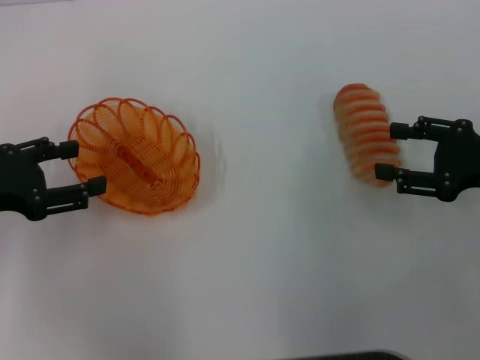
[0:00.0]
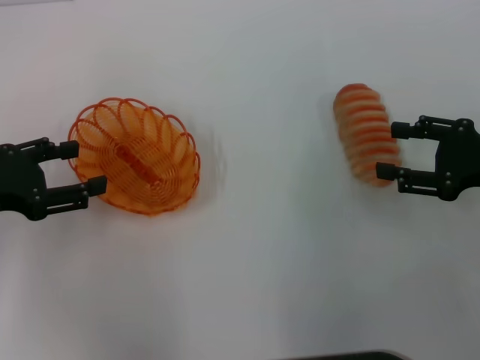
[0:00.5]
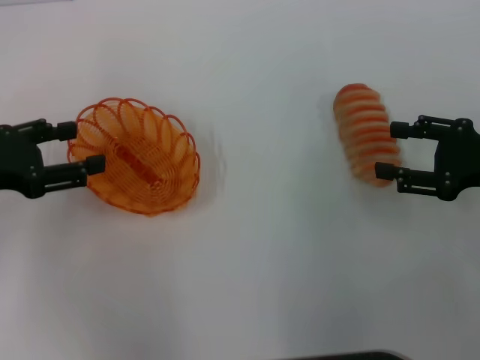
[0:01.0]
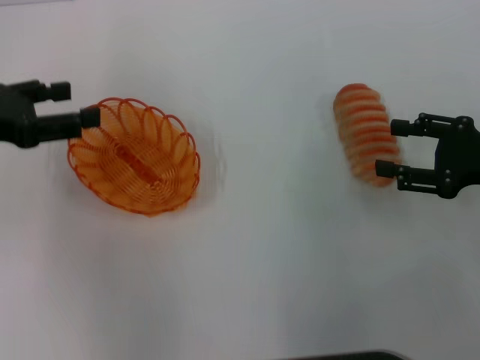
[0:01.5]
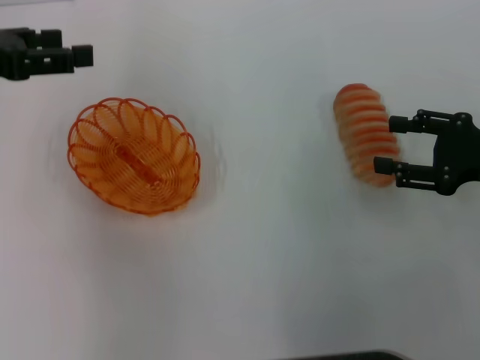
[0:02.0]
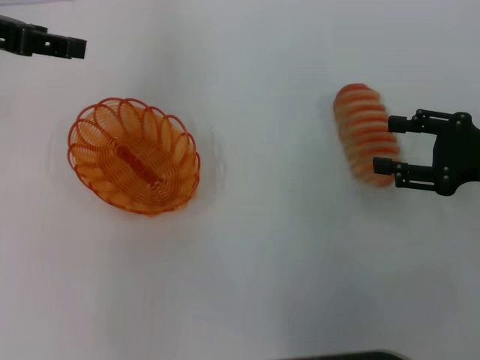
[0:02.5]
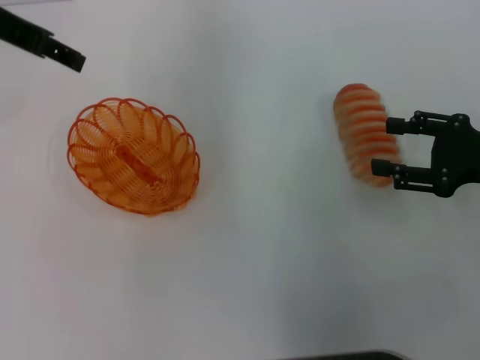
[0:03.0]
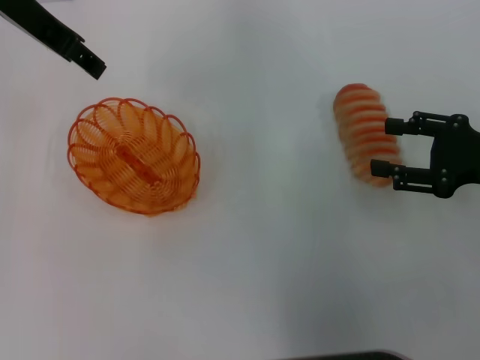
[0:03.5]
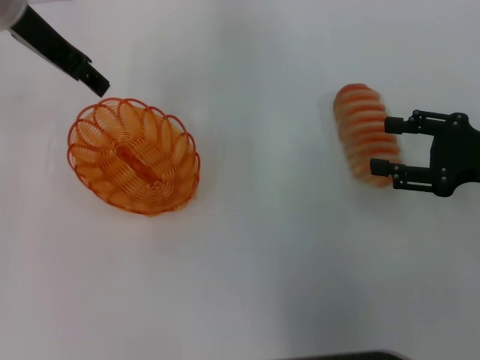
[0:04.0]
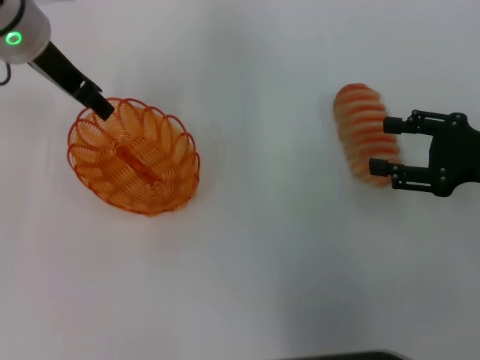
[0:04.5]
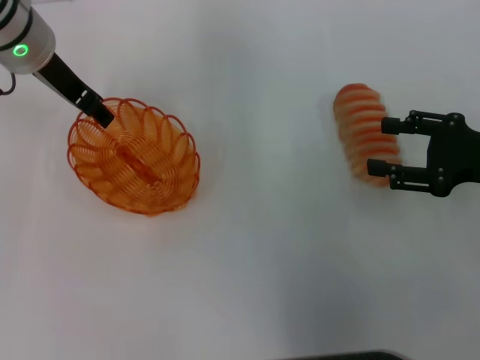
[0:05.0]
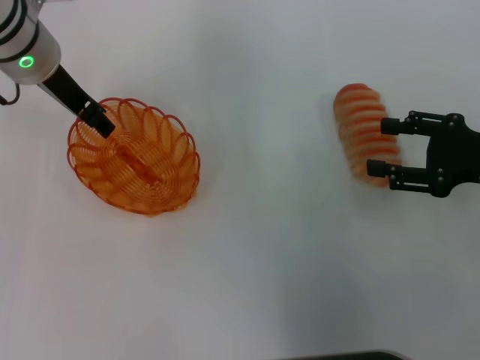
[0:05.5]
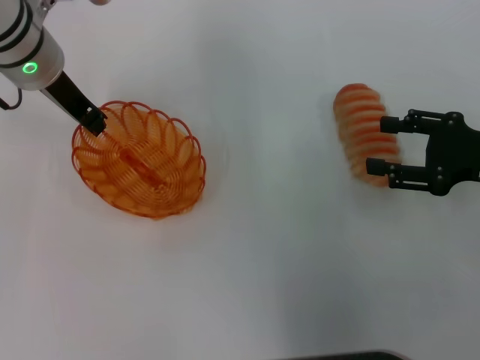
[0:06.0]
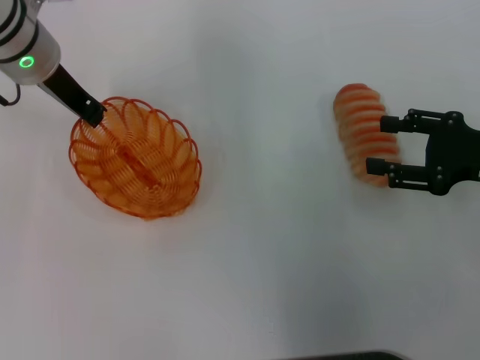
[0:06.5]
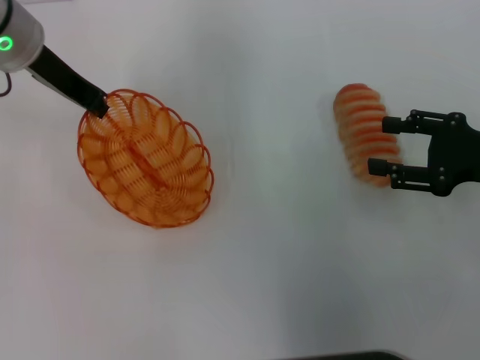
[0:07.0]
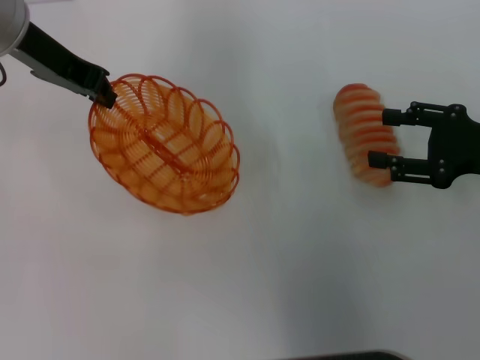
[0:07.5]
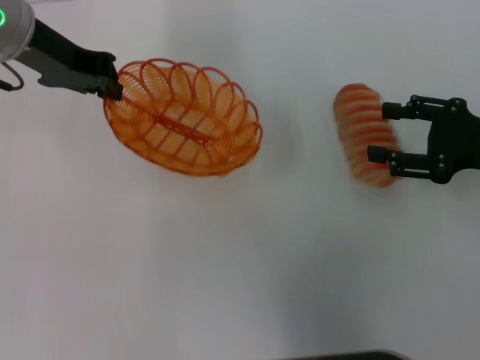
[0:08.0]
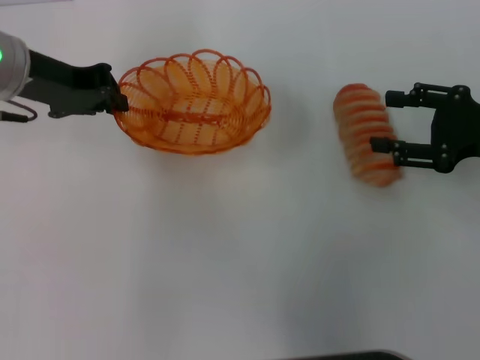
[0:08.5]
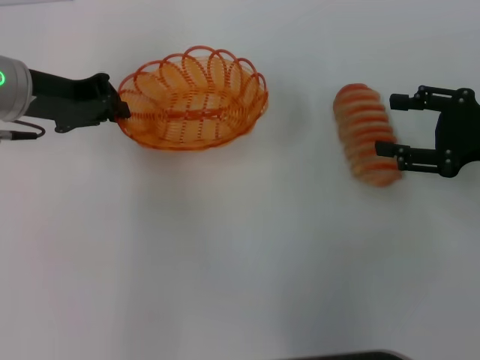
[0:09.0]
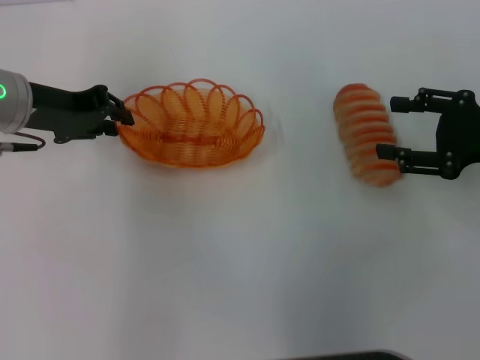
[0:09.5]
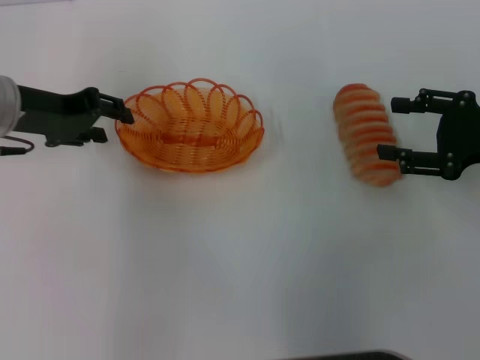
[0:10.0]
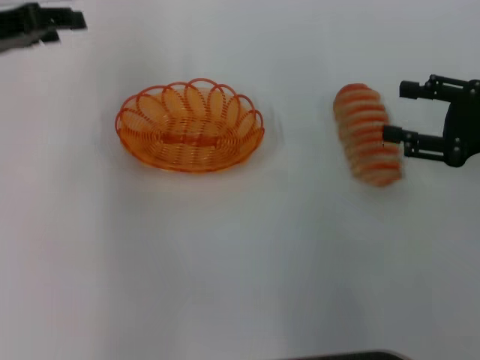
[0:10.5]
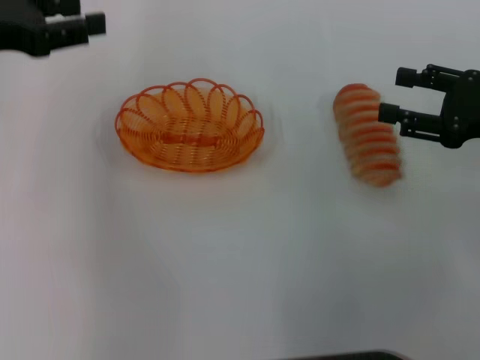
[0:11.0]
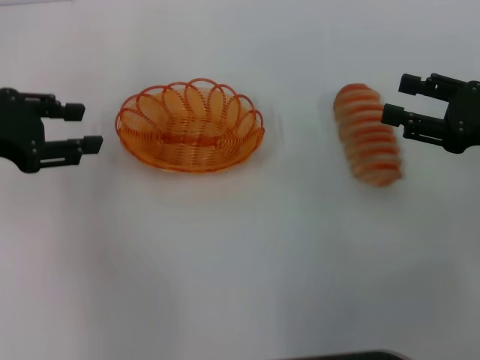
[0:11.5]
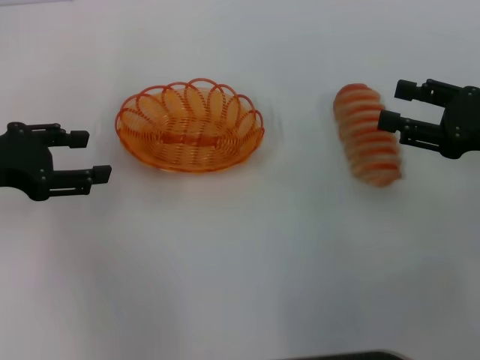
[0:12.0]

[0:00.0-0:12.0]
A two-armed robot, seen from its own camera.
Step, 0:00.0 to 0:07.0: Pick up the basket with the left gripper.
Step, 0:07.5 to 0:10.0: Place the basket in the center of view with the left gripper.
0:00.0 to 0:02.0: The left gripper travels upward and forward by approximately 10 cm.
0:02.0 to 0:04.0: The left gripper is displaced to the right and forward by roughly 15 cm.
0:04.0 to 0:06.0: The left gripper is displaced downward by about 5 cm, and closes up.
0:06.0 to 0:08.0: The left gripper changes place by about 5 cm, and closes.
0:08.0 to 0:10.0: The left gripper goes about 5 cm downward, and opens up.
0:10.0 to 0:12.0: The left gripper heads backward and to the left, covering roughly 10 cm.

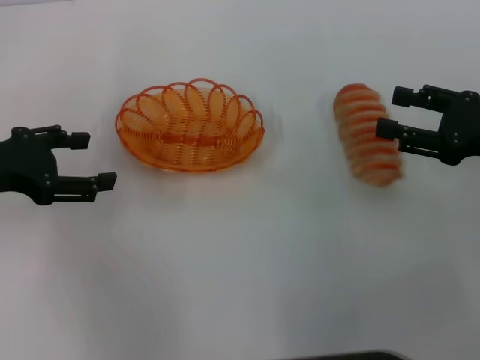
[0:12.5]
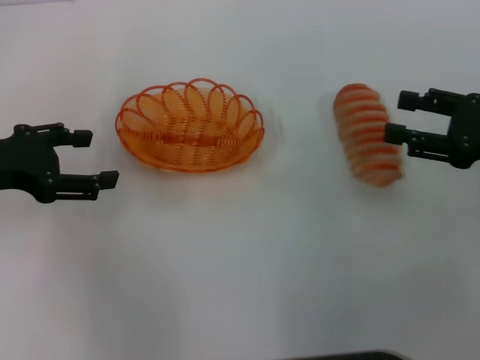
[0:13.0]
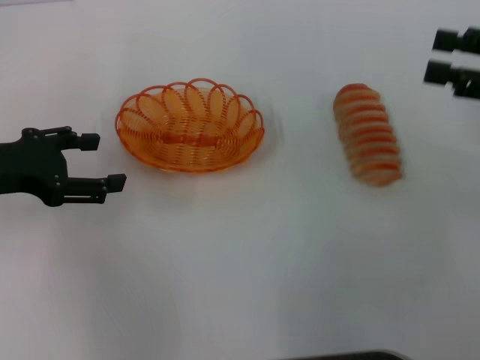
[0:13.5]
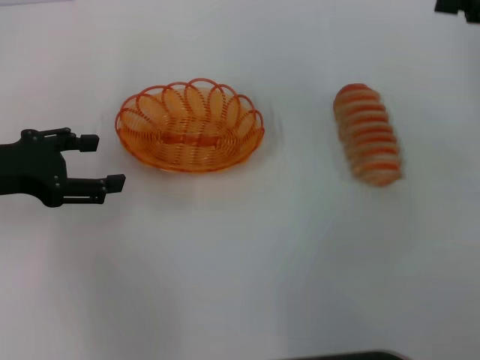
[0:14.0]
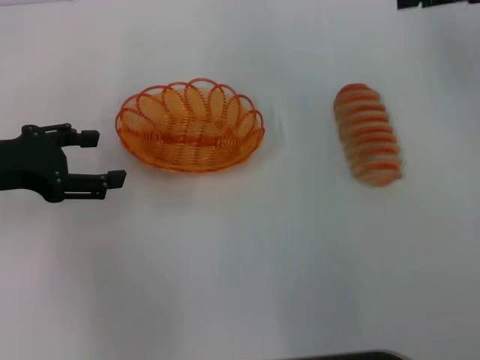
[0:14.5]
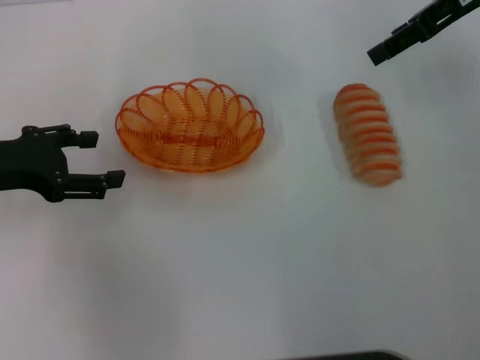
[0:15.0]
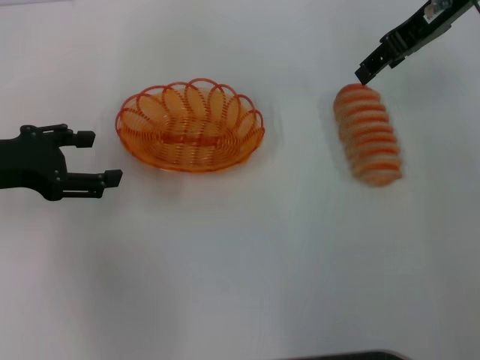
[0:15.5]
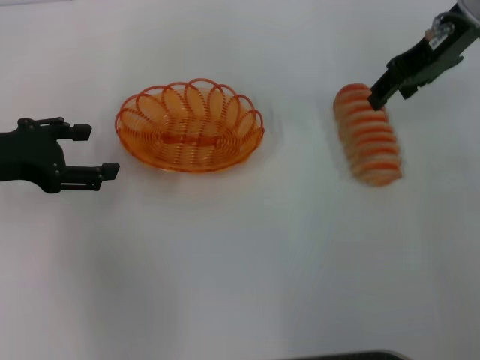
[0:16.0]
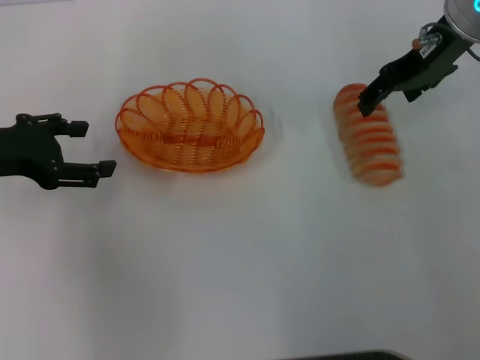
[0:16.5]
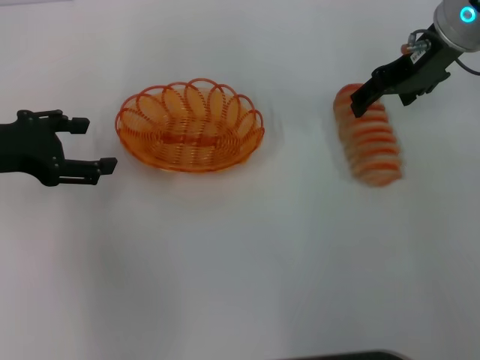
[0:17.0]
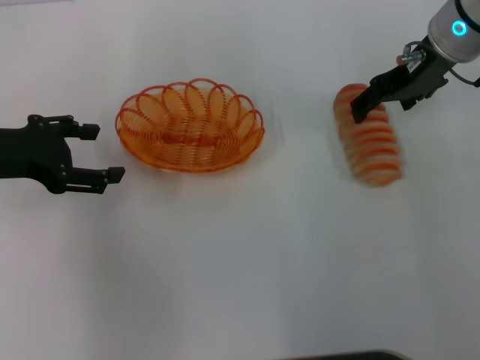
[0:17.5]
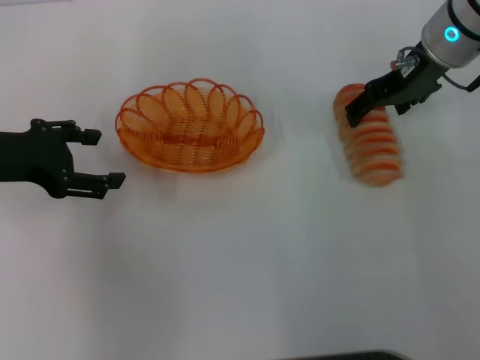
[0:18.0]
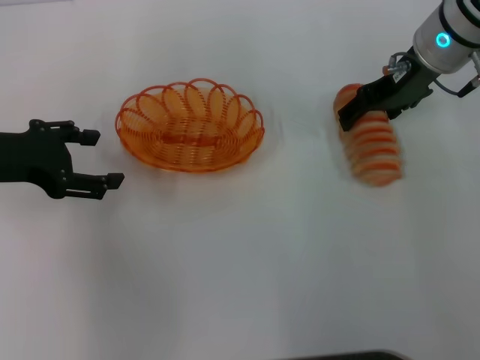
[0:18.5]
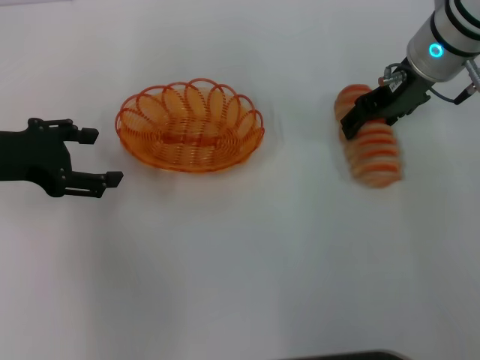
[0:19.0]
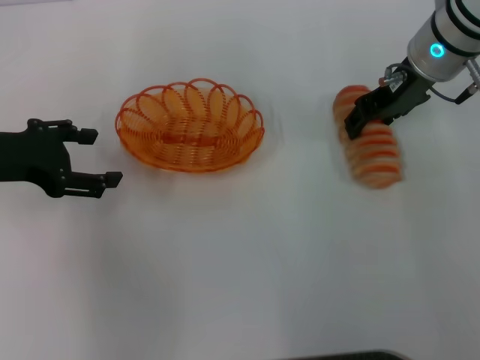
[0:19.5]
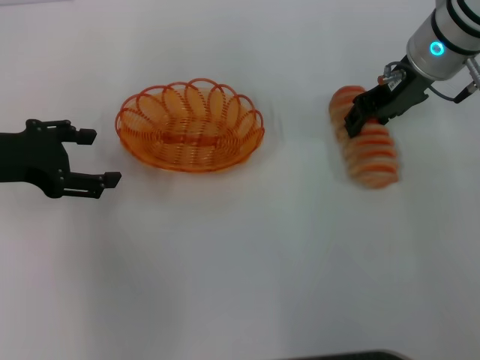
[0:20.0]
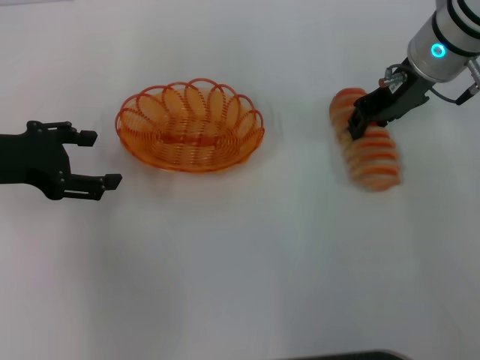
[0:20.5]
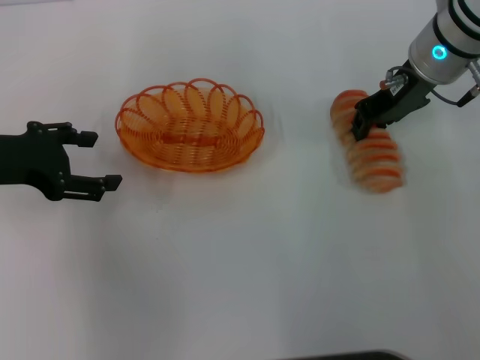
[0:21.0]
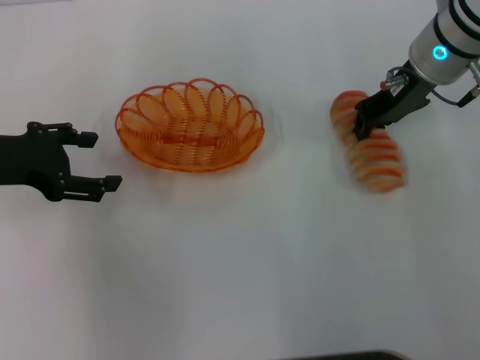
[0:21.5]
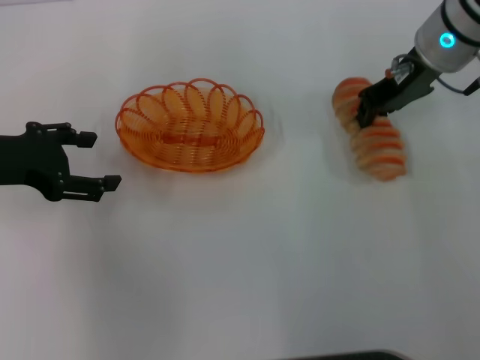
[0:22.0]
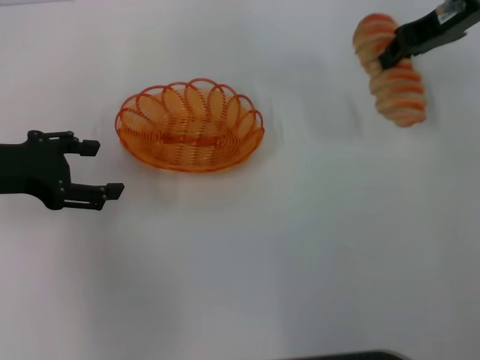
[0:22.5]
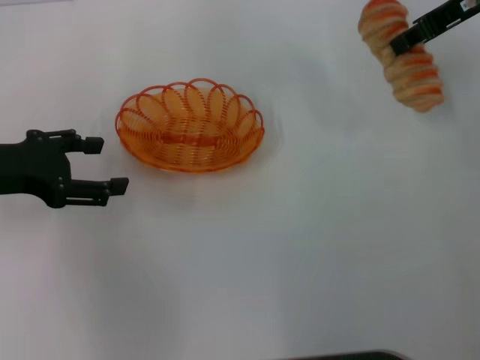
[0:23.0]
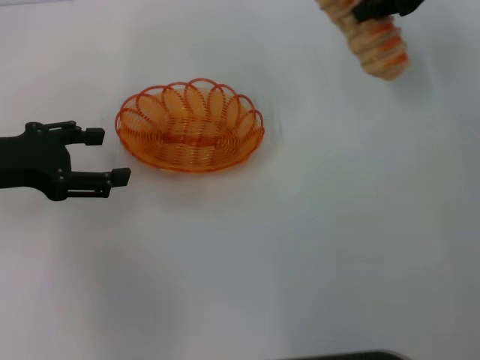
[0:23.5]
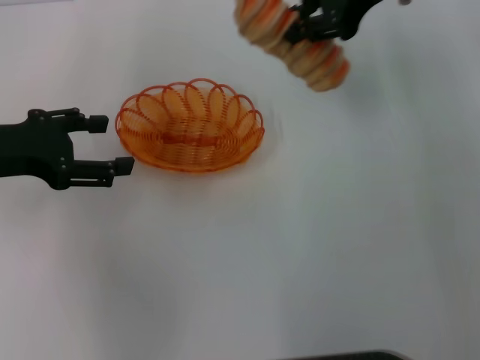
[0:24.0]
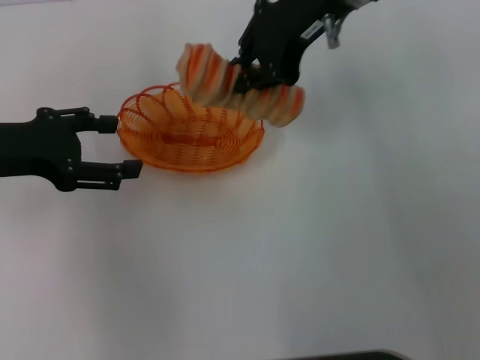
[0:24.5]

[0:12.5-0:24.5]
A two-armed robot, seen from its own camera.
Step, 0:12.5 to 0:21.5: Pick up the long bread with the right gripper.
0:12.5 to 0:14.5: The right gripper moves upward and forward, about 15 cm.
0:14.5 to 0:16.5: The right gripper heads to the left, covering roughly 10 cm.
0:16.5 to 0:18.5: The grippers make only small movements.
0:18.5 to 0:20.5: The right gripper closes up.
0:20.5 to 0:22.5: The right gripper moves to the right and upward, some 10 cm.
0:22.5 to 0:24.5: The right gripper heads to the left, covering about 15 cm.

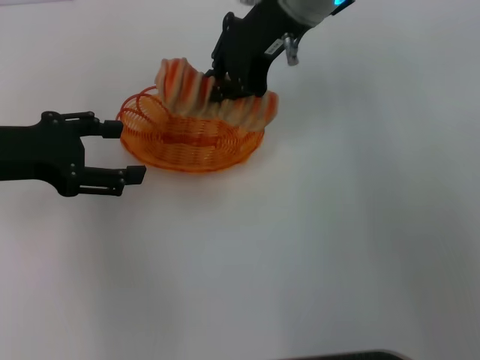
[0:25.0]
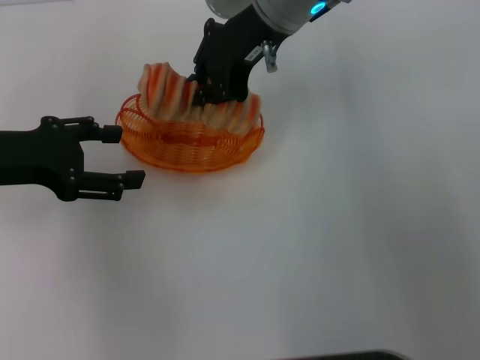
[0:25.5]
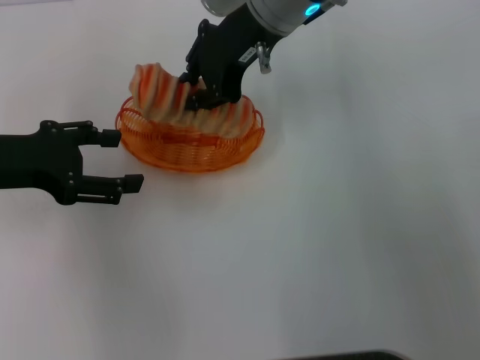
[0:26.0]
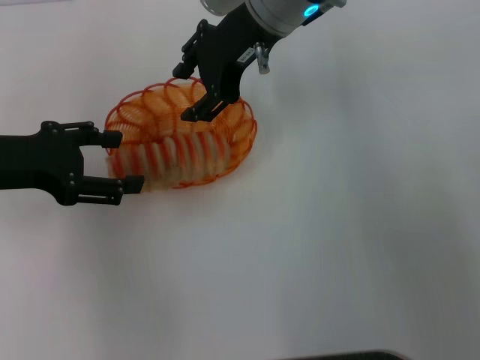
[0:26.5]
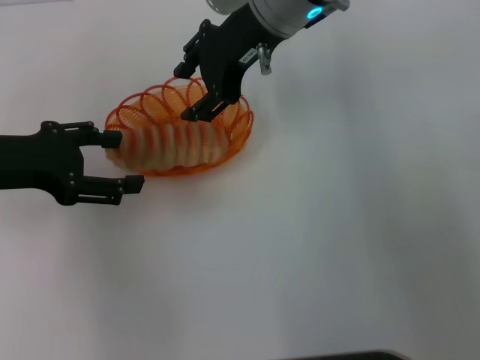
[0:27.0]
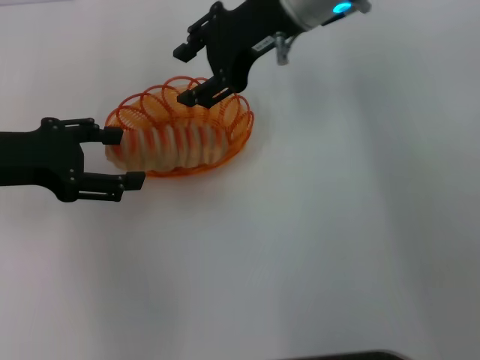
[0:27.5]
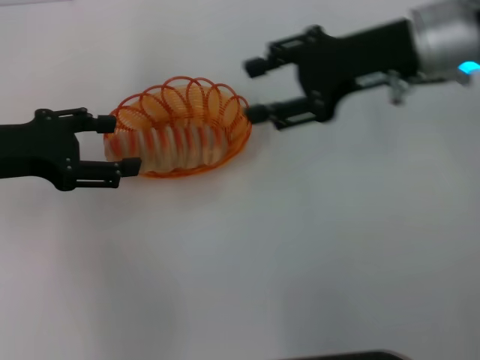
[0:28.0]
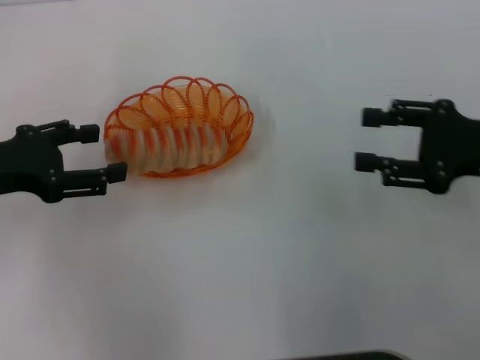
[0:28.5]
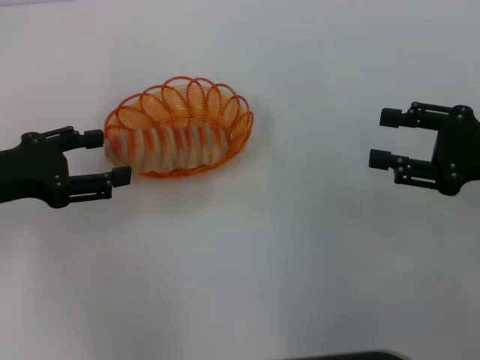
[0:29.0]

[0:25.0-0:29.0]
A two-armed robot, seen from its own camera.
Step, 0:25.0 to 0:27.0: Place the long bread into the basket with the right gripper.
0:25.0 to 0:27.0: The right gripper opens up.
0:27.0 to 0:29.0: The right gripper is displaced to the right and backward by roughly 30 cm.
